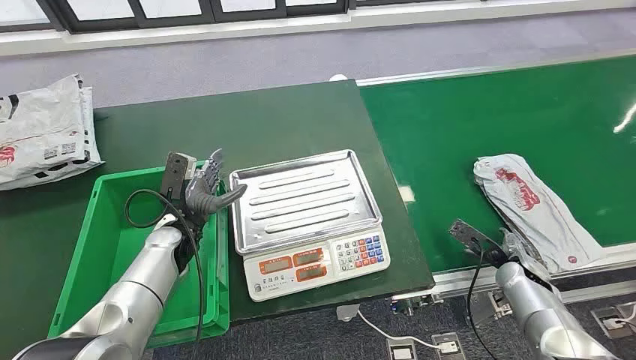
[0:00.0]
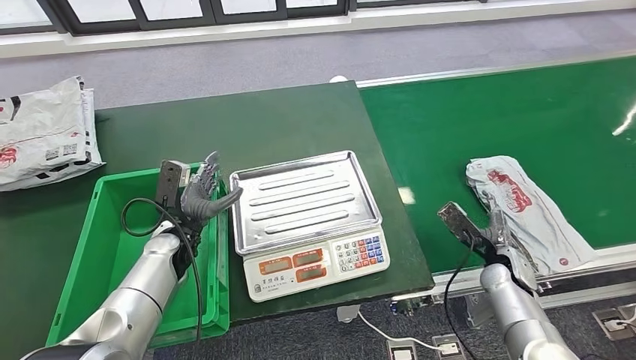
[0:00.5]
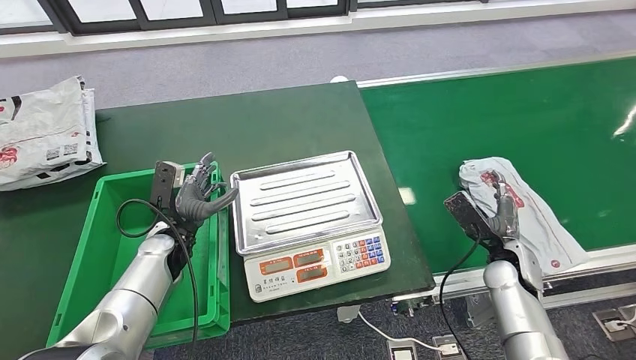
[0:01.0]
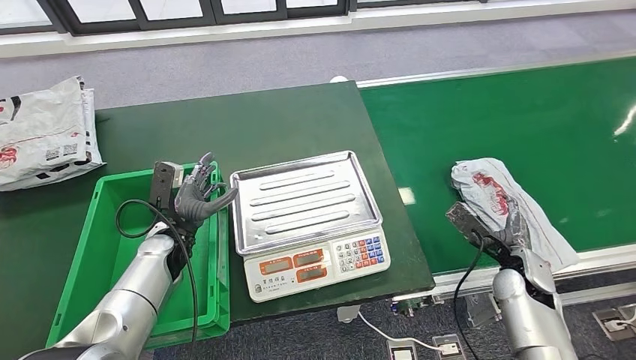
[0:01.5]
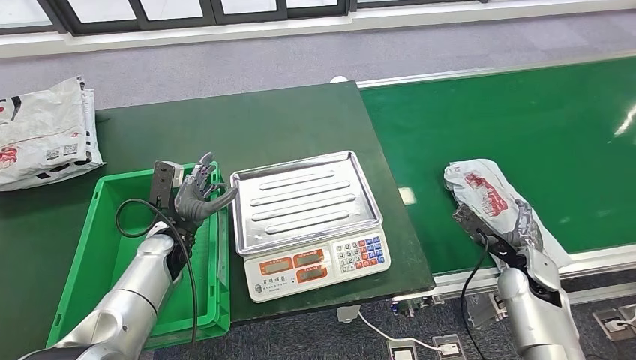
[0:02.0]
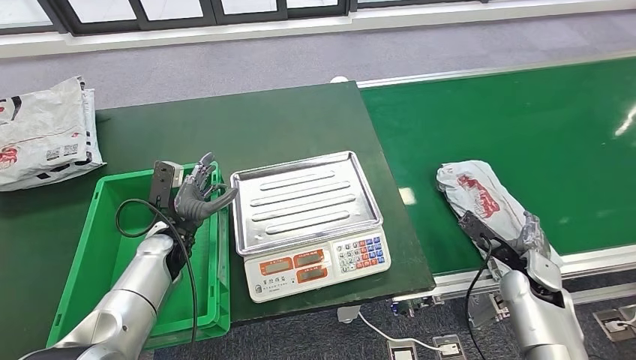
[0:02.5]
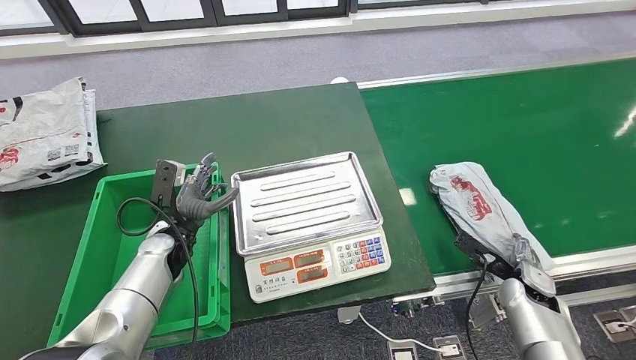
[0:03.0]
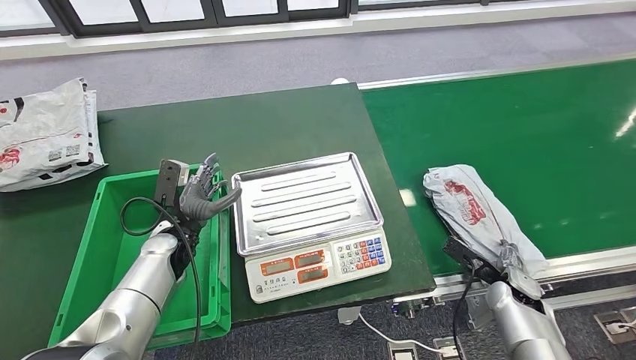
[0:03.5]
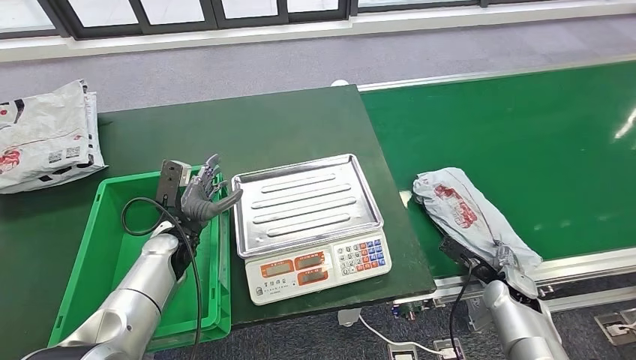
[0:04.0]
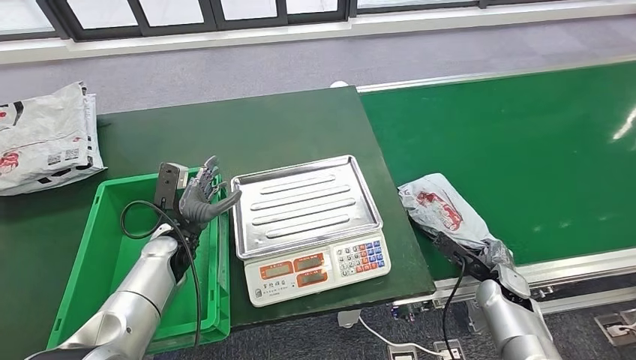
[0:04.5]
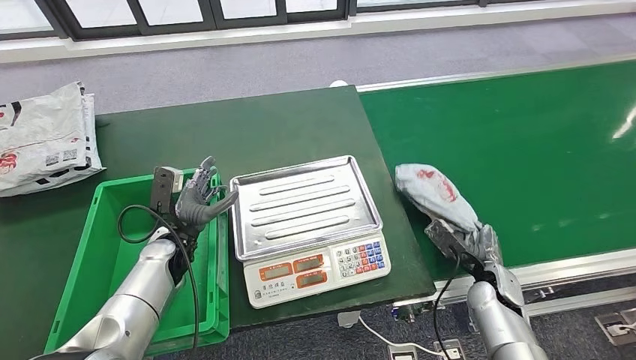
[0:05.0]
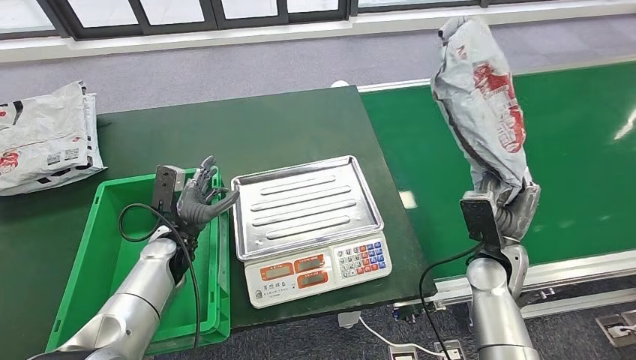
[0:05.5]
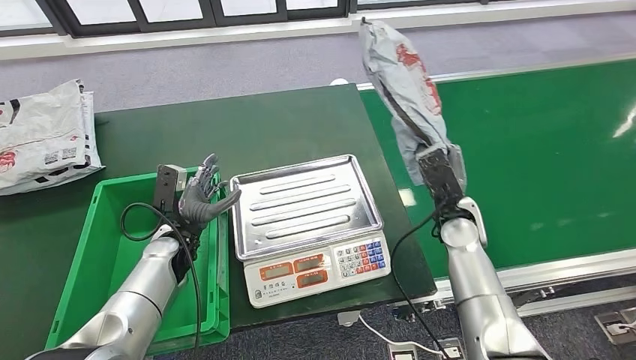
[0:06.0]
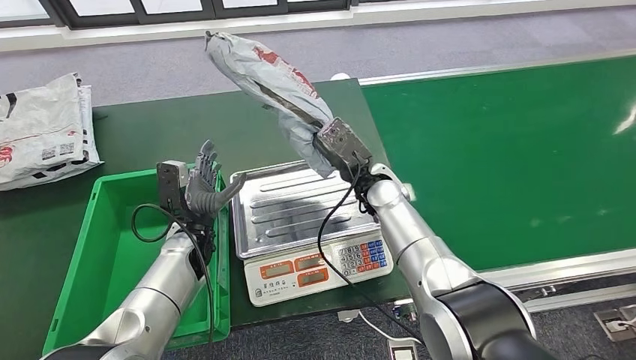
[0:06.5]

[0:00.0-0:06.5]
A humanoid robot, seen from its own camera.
Step, 0:00.0 to 0:06.5: Take the parcel off the conveyor belt.

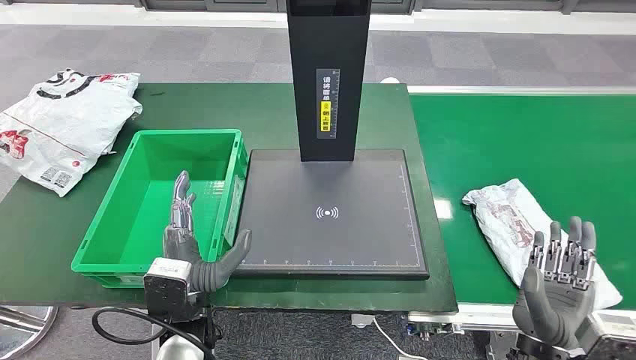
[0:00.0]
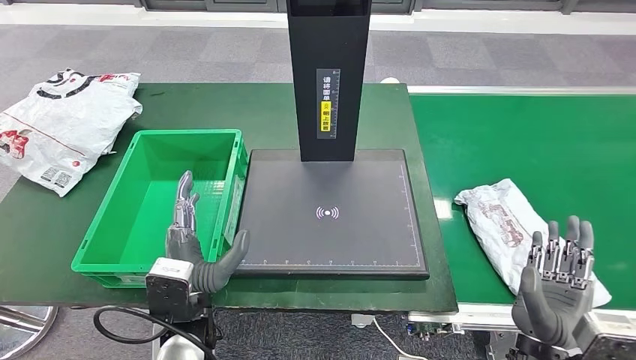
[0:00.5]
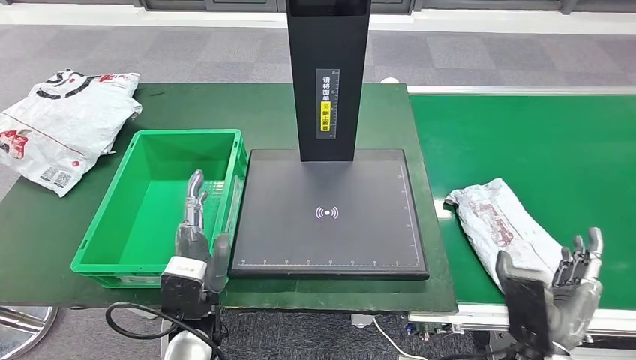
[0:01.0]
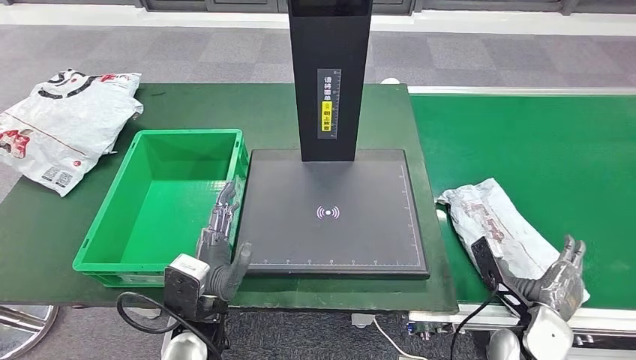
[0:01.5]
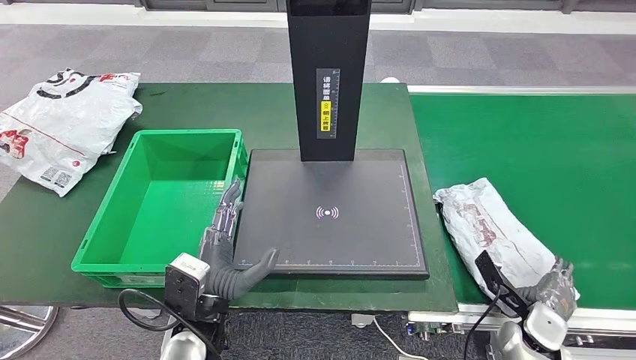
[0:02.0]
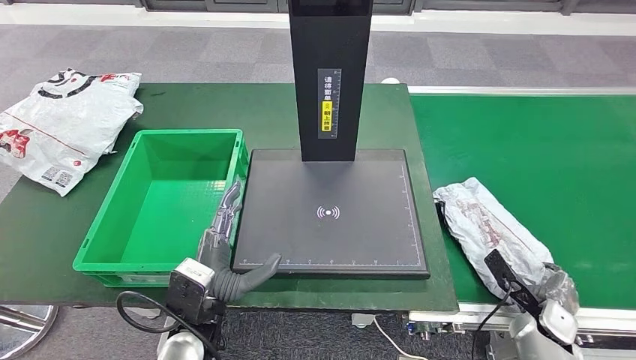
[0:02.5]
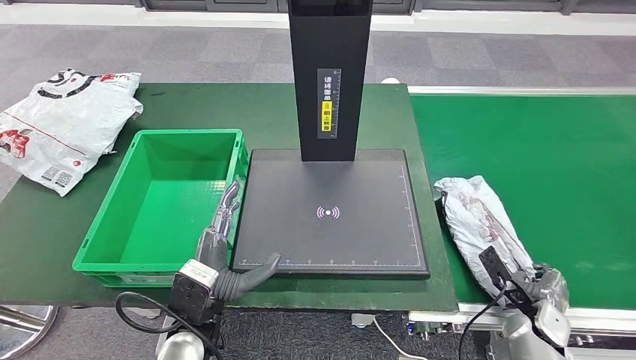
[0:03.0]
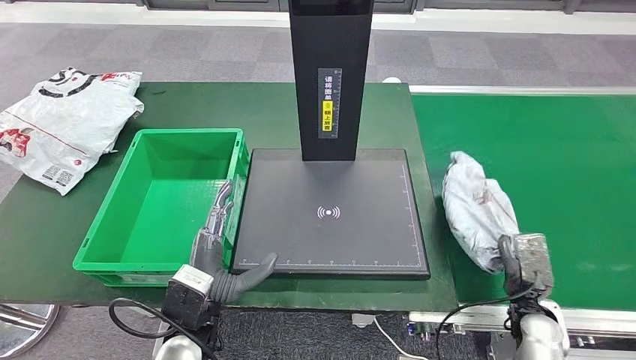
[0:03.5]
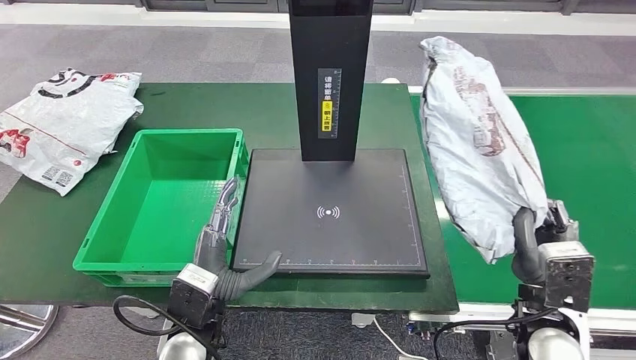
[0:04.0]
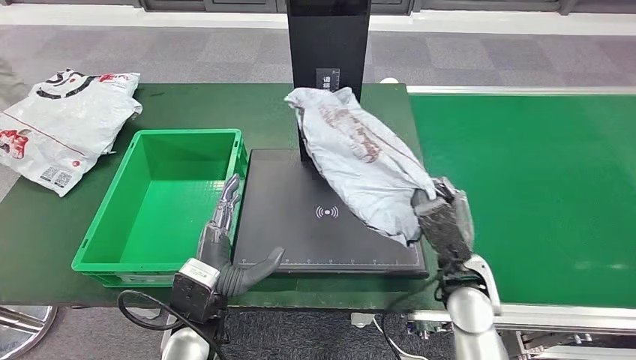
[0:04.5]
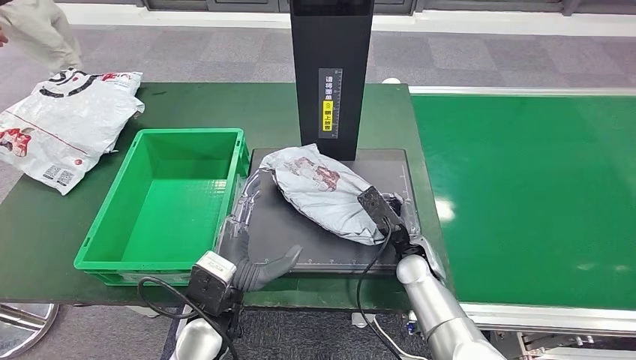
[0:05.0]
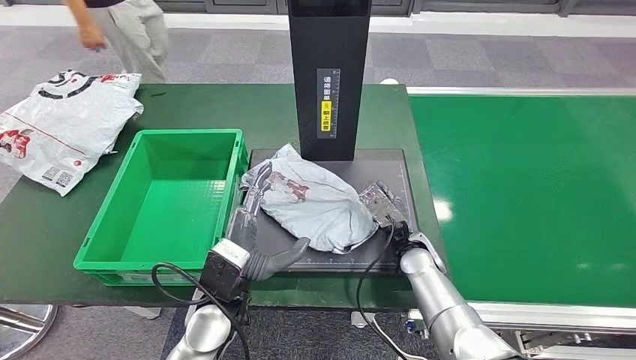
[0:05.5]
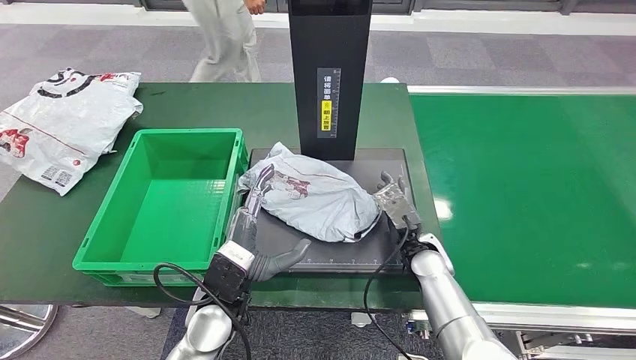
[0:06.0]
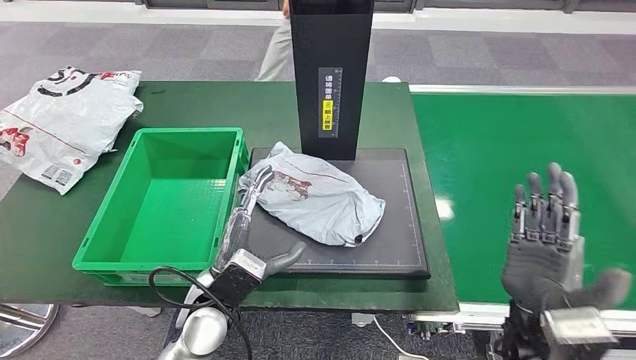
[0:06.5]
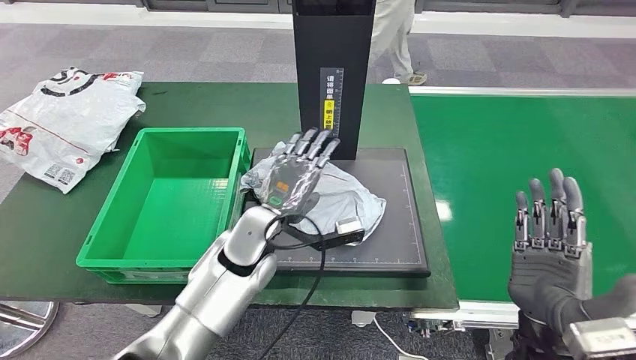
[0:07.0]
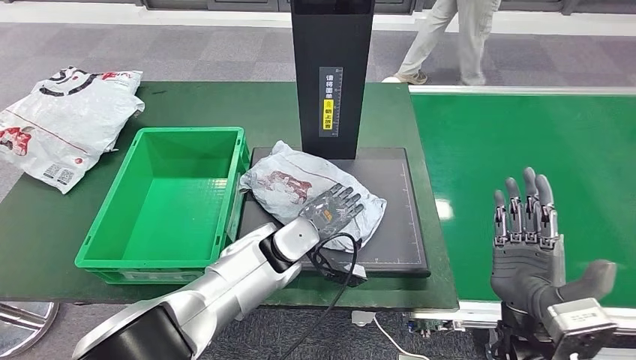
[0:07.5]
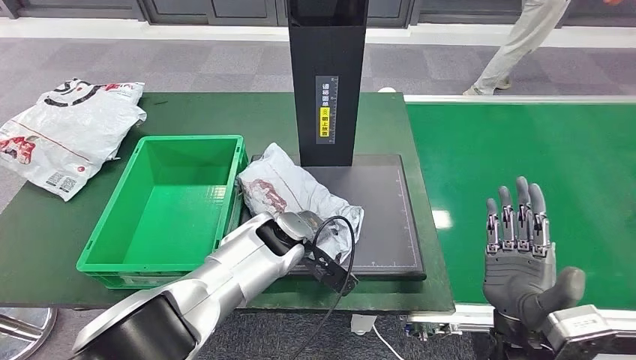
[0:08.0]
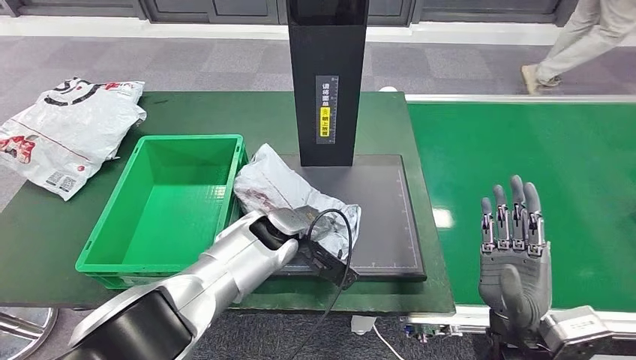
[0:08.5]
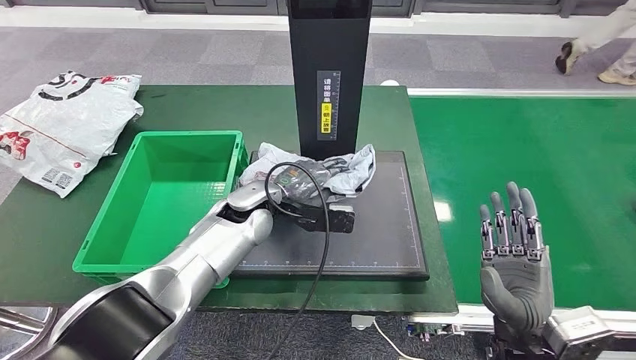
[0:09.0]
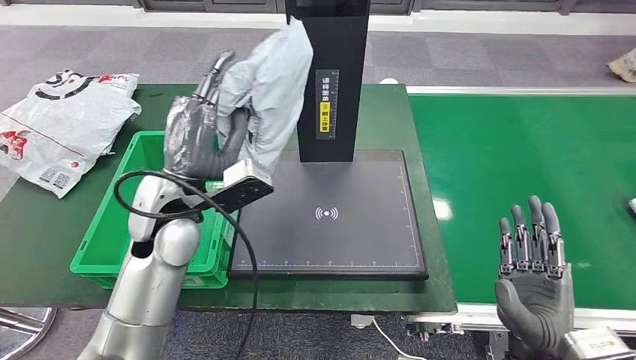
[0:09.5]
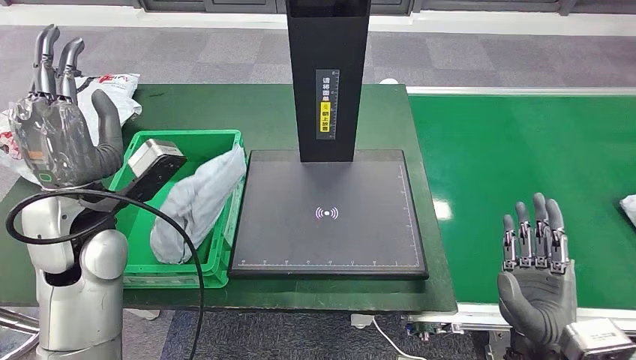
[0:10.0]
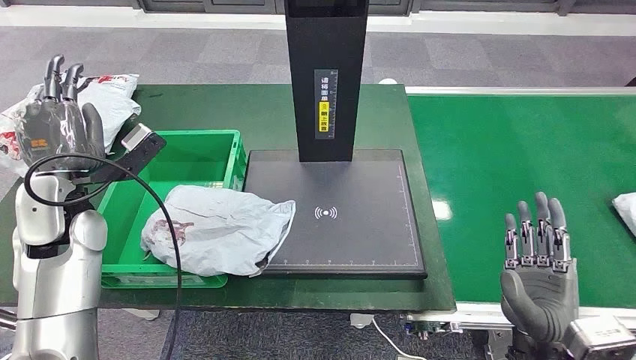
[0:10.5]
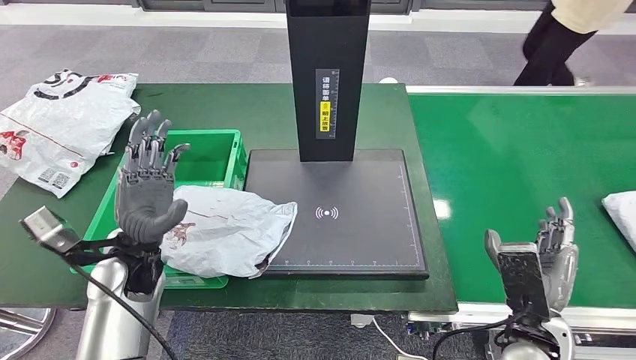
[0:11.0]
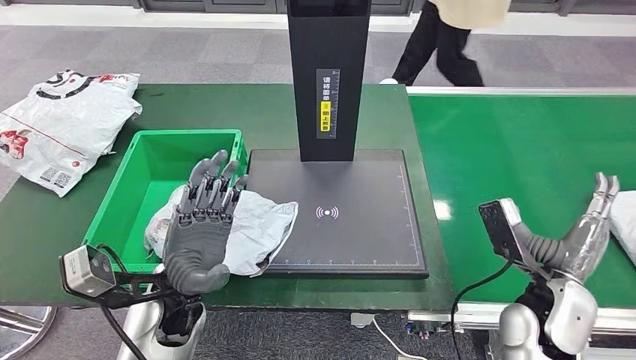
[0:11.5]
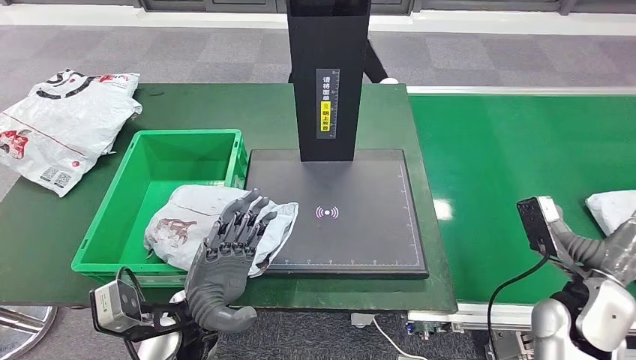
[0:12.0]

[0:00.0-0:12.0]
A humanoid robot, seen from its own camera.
Step, 0:00.0 to 0:03.5: Take the parcel off the conveyor belt.
Step, 0:04.0 to 0:07.0: Place the parcel onto the inbound machine.
Step, 0:07.5 to 0:09.5: Pick up the parcel from the inbound machine.

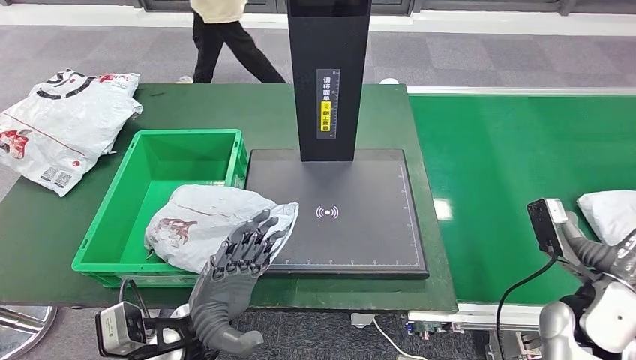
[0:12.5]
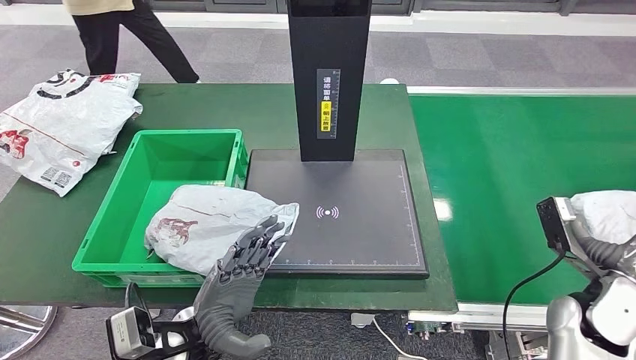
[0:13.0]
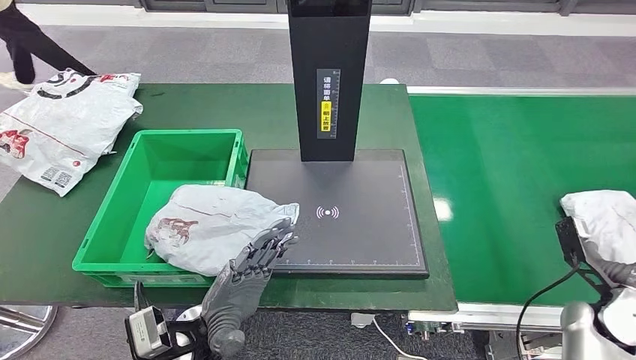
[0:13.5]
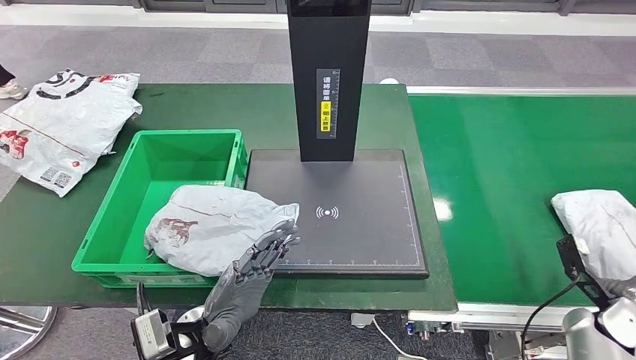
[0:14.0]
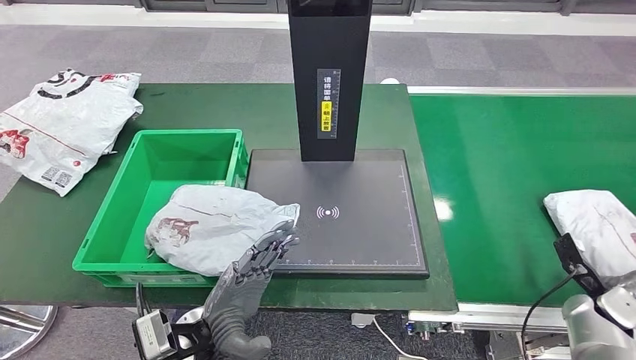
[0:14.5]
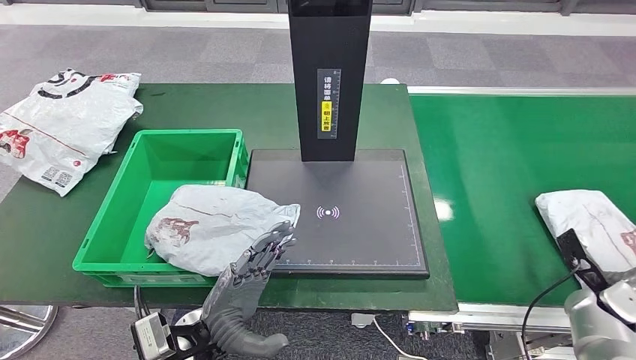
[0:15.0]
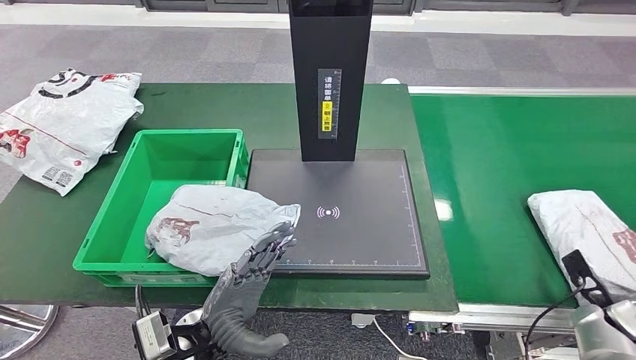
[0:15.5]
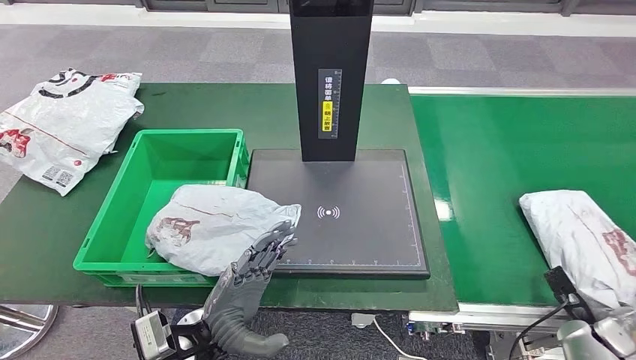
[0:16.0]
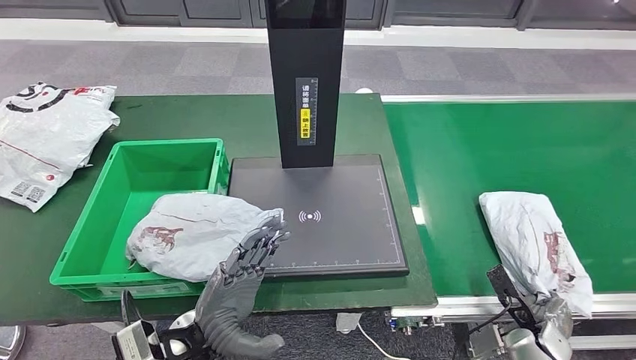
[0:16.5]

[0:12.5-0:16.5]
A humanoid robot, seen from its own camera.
0:12.5 to 0:14.5: The right hand travels to the right and downward by some 15 cm.
